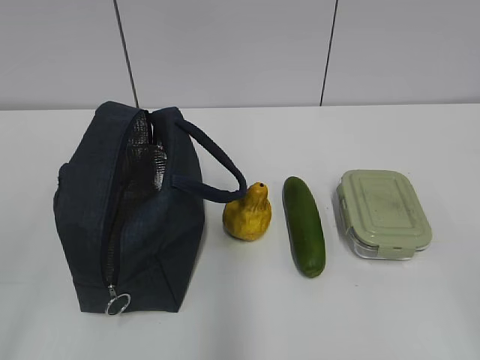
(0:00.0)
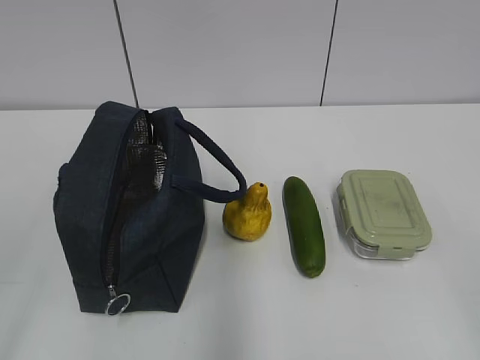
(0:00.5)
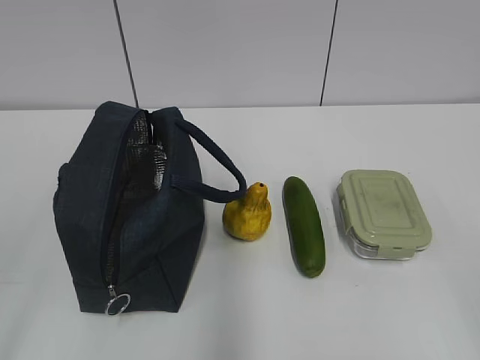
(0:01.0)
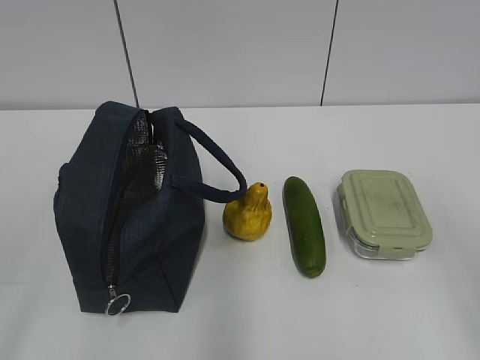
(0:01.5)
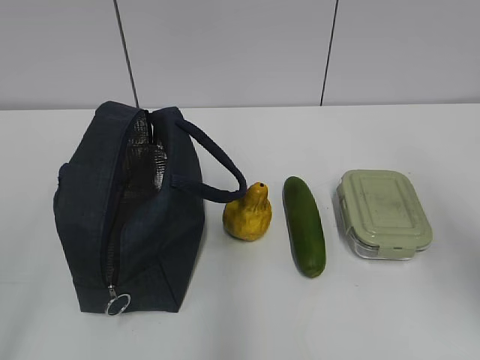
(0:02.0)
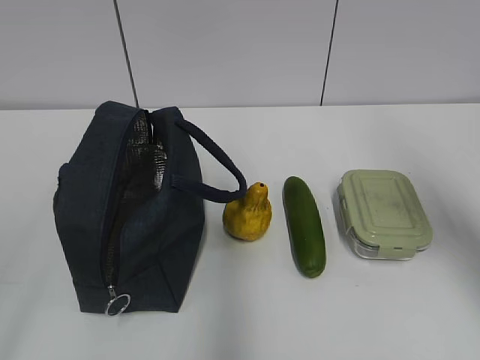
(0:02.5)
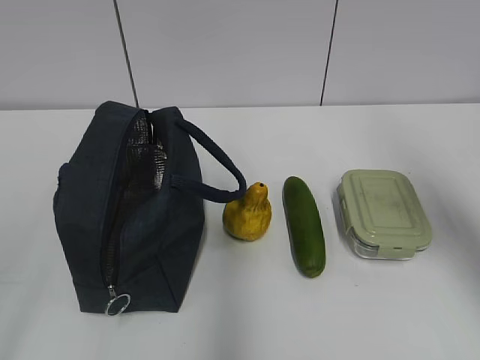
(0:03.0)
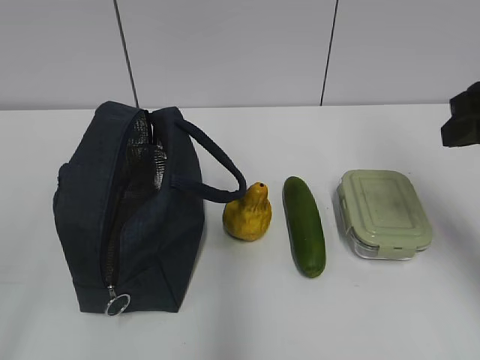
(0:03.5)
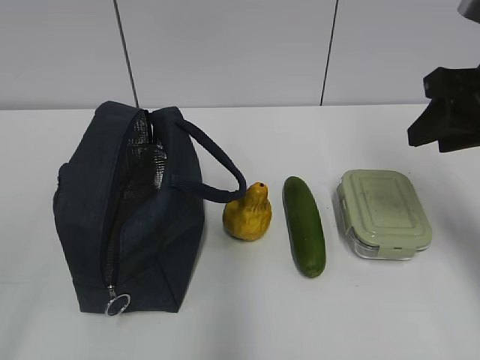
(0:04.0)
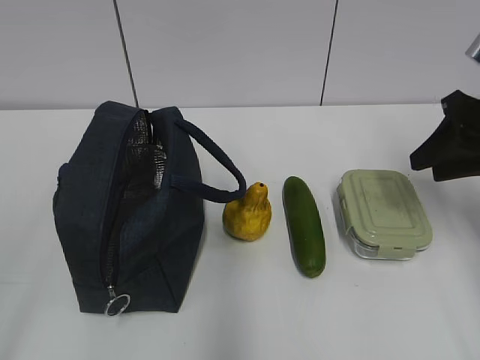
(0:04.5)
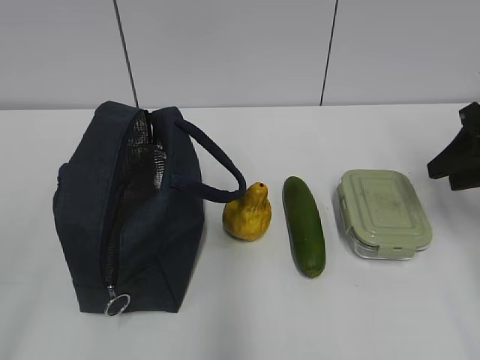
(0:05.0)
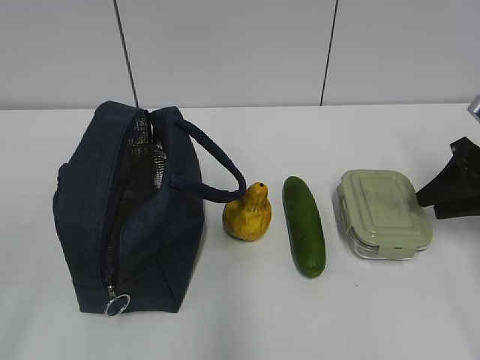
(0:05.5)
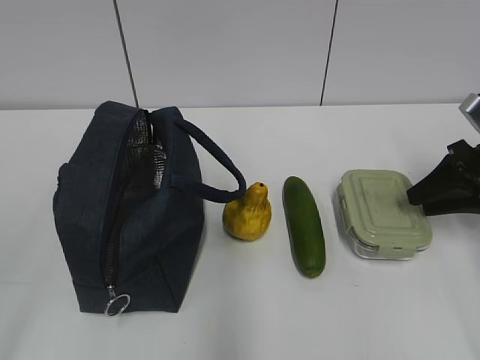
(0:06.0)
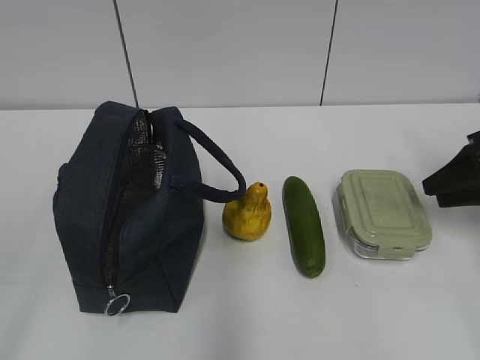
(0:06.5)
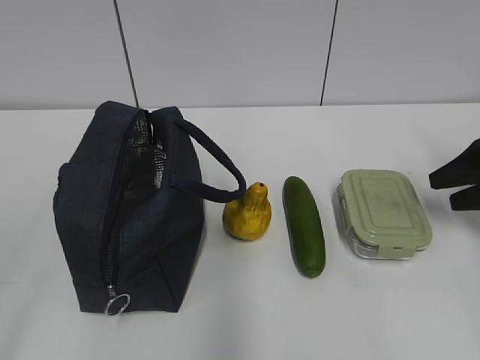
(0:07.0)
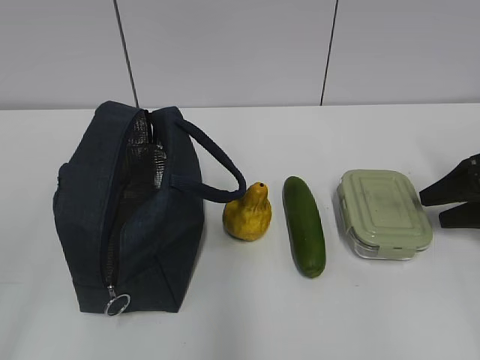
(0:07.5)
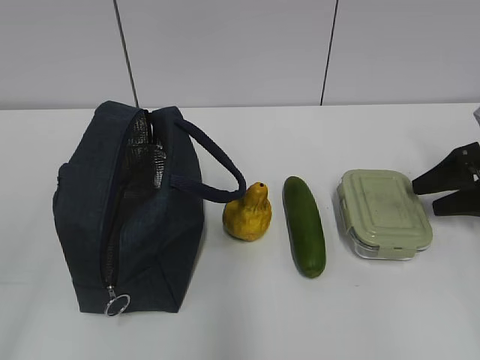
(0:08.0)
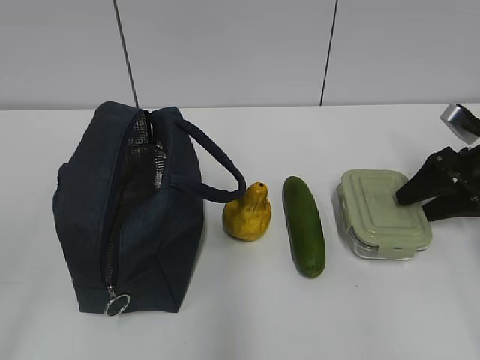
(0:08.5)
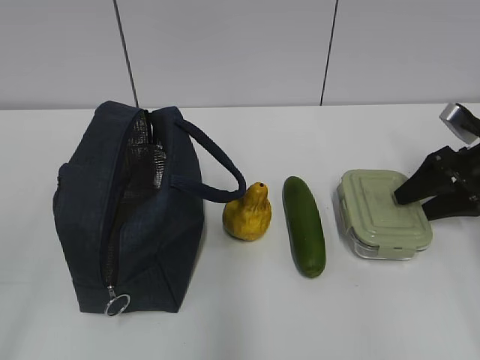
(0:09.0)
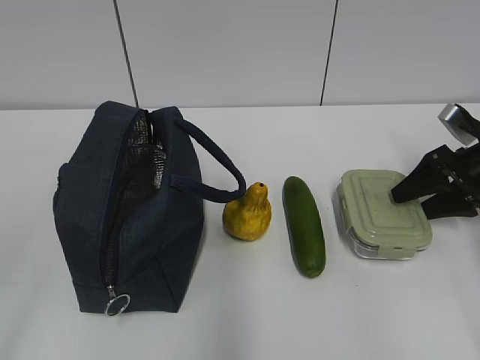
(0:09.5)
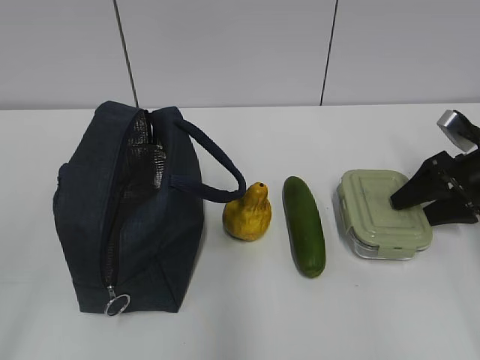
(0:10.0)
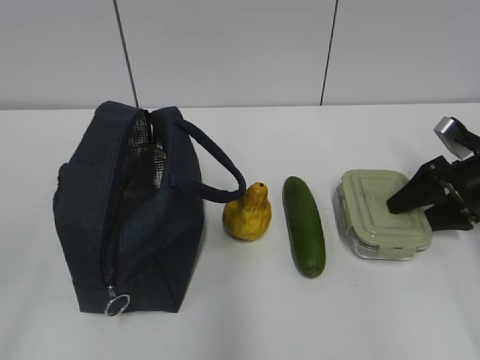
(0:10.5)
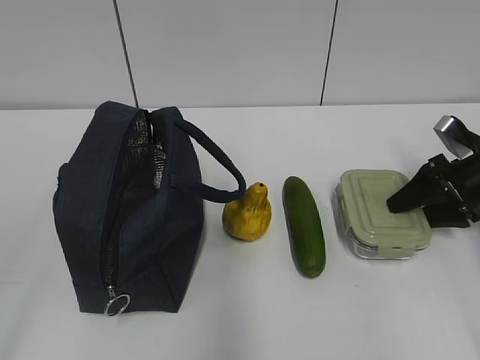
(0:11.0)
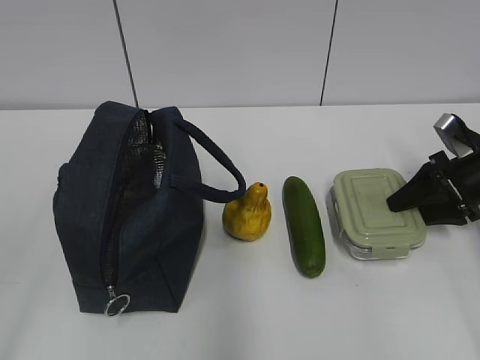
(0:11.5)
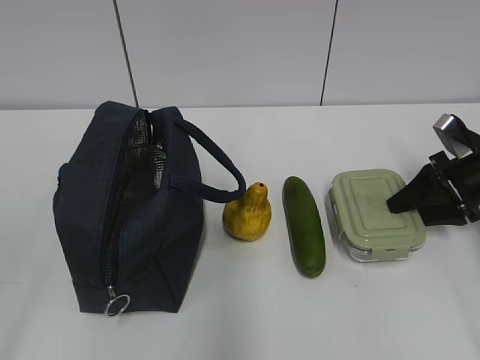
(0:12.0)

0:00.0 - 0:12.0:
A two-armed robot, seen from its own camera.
0:02.0 - 0:04.0: The right gripper moves forward, approximately 15 cm.
0:04.0 - 0:06.0: The right gripper heads downward and to the right, covering about 15 cm.
0:06.0 - 0:08.0: The right gripper moves approximately 5 cm, and opens.
0:08.0 - 0:10.0: The grippers move only a little.
0:10.0 - 0:12.0: Both grippers stay put.

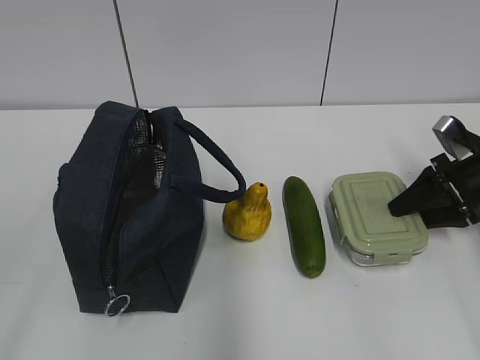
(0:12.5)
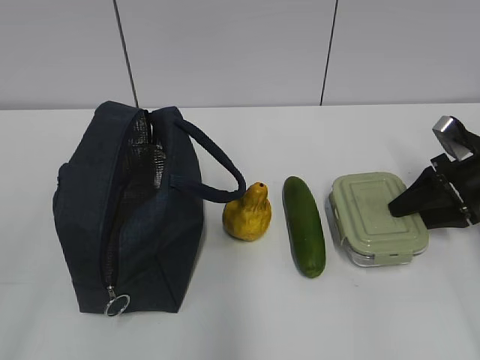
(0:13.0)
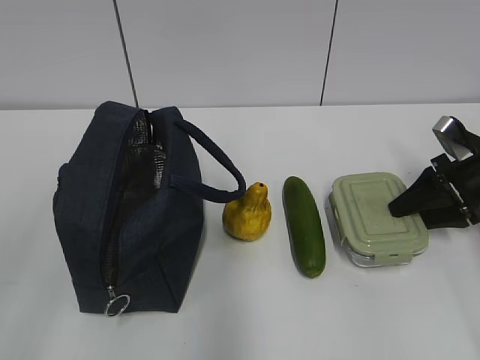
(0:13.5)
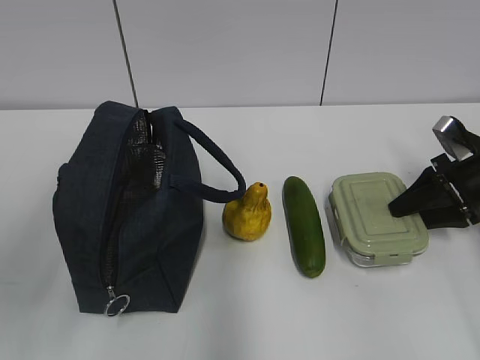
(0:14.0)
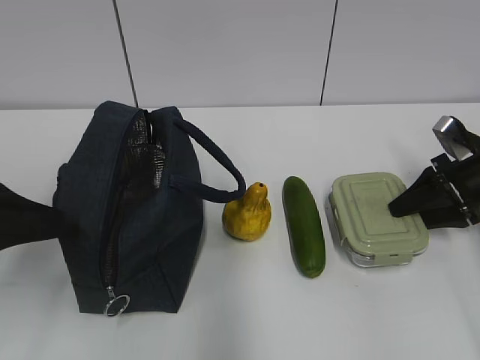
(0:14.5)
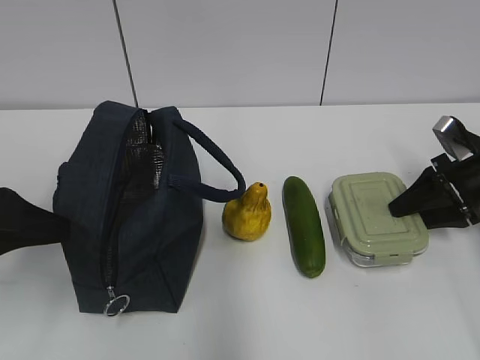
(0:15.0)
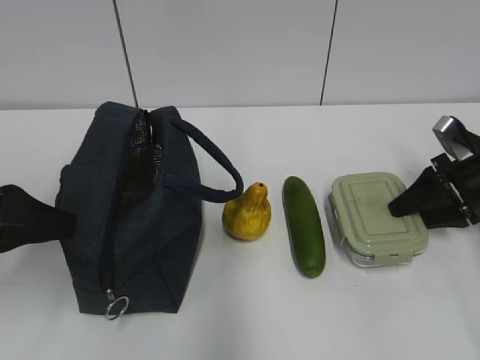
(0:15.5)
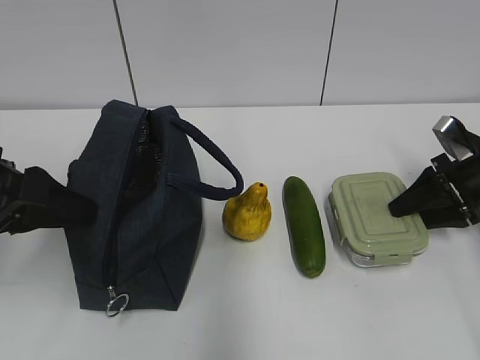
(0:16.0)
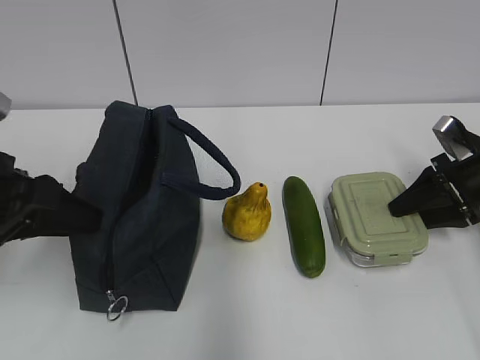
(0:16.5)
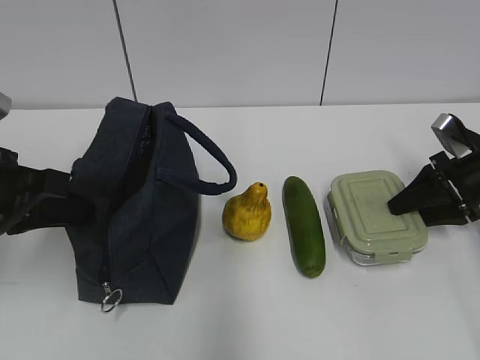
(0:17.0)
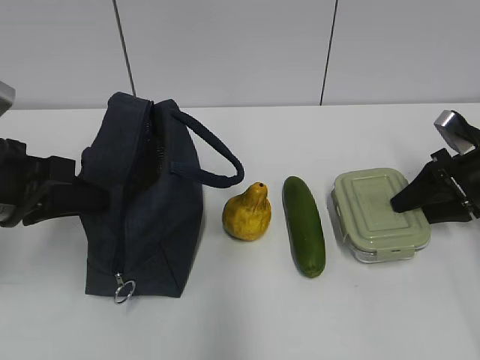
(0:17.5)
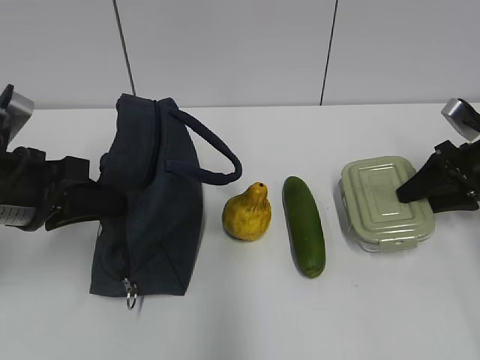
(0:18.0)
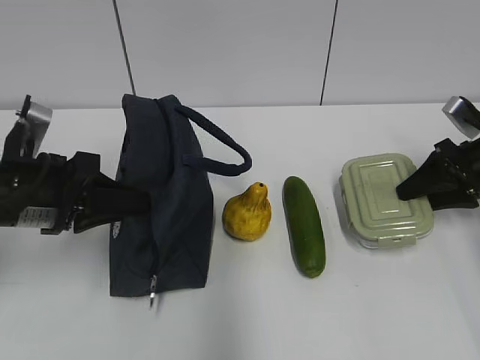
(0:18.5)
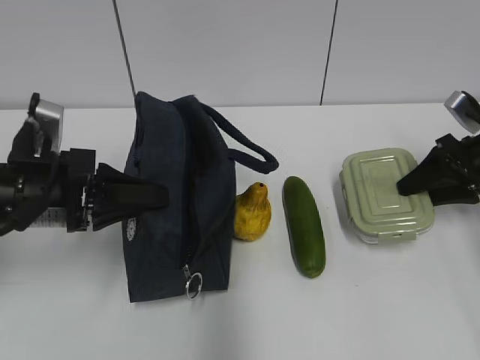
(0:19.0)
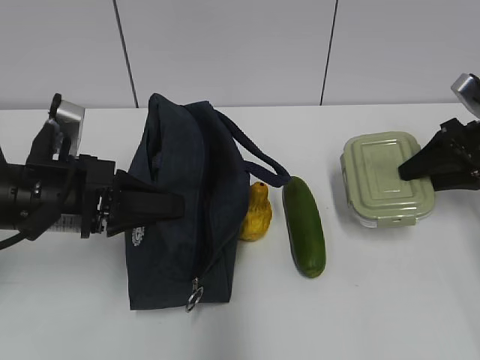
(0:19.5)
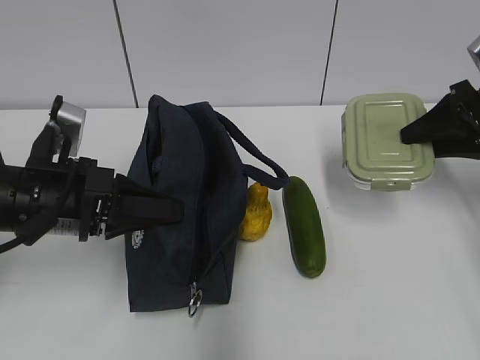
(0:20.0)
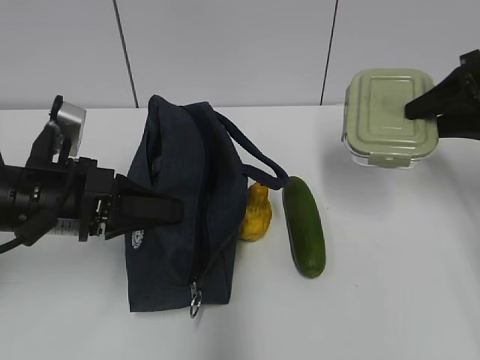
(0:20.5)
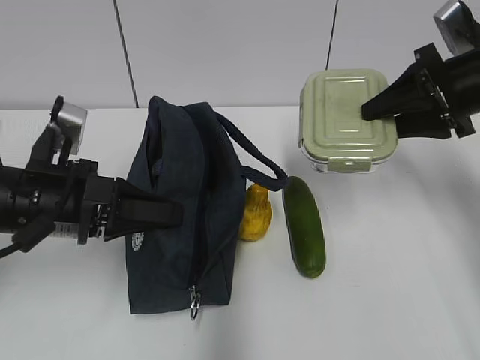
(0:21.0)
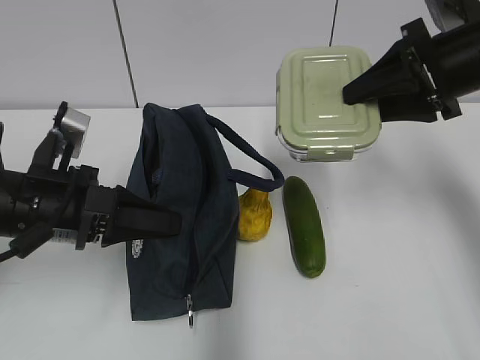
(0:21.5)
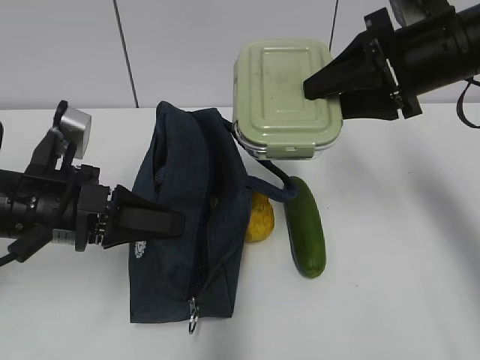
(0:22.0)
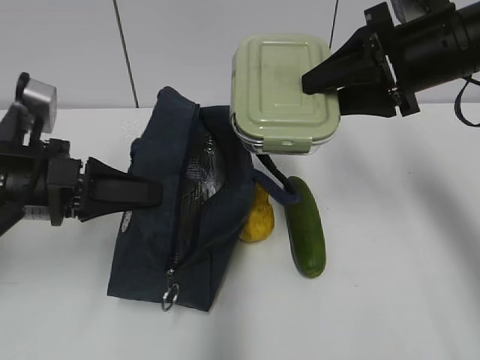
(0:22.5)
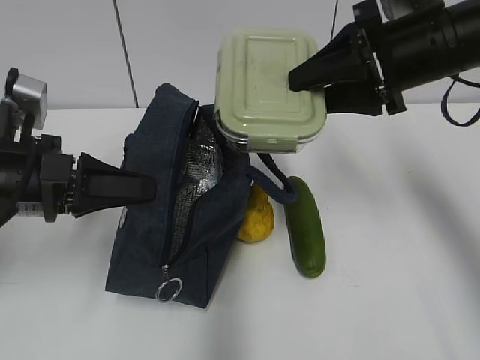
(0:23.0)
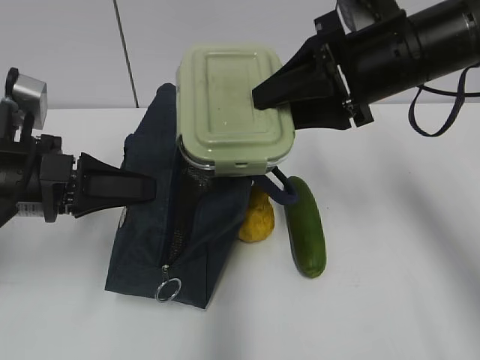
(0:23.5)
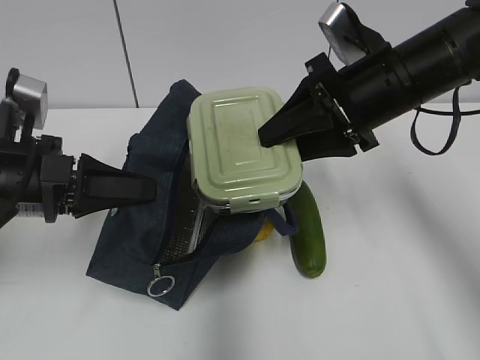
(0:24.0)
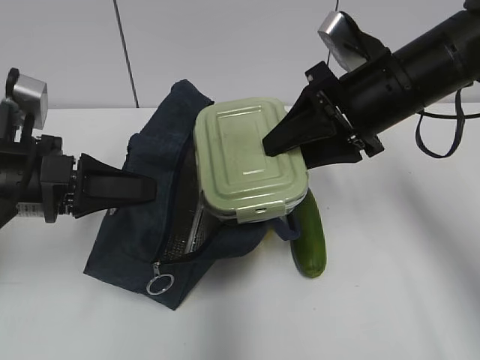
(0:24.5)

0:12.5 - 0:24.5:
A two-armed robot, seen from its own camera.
Step, 0:15.0 - 0:23.5: Grab the lunch bag with your left hand.
0:12.5 - 0:14.5: The left gripper shifts some 20 cm forward.
0:14.5 - 0:16.5: The left gripper heads forward, covering some 5 cm, and closes up.
0:16.5 - 0:18.5: The left gripper ends up approximately 5 cm from where it was, and closes up.
0:18.5 - 0:20.5: The right gripper shifts some 10 cm upward.
0:20.5 - 0:22.5: The right gripper goes roughly 15 cm to the left.
0:22.5 - 0:24.5: The right gripper shifts by some 5 cm.

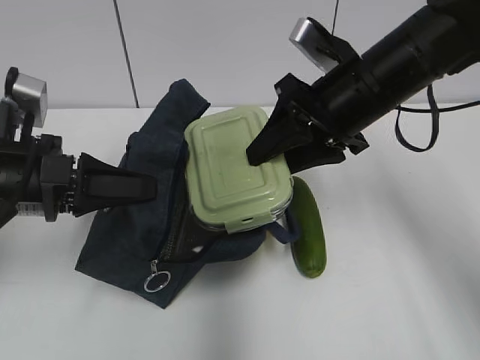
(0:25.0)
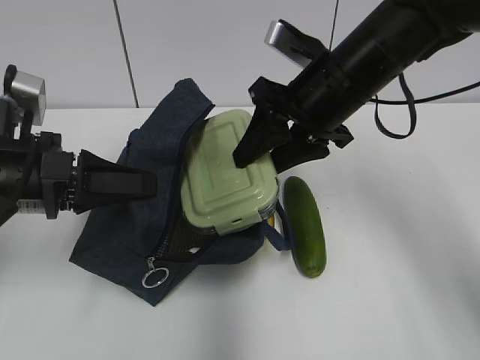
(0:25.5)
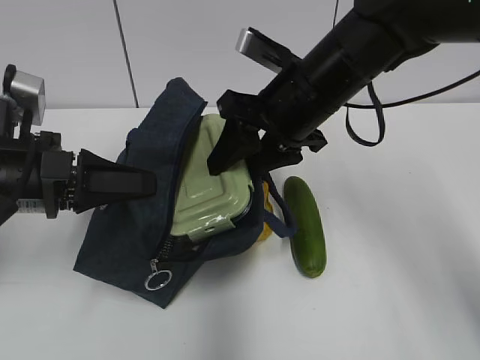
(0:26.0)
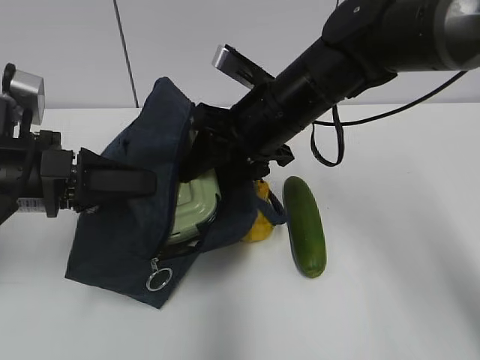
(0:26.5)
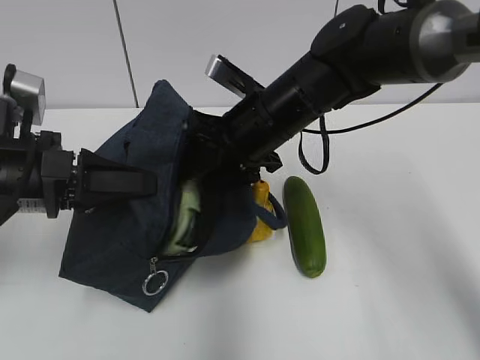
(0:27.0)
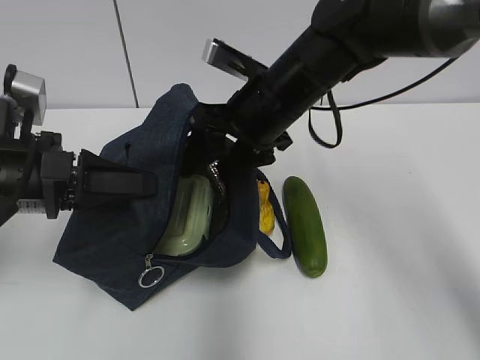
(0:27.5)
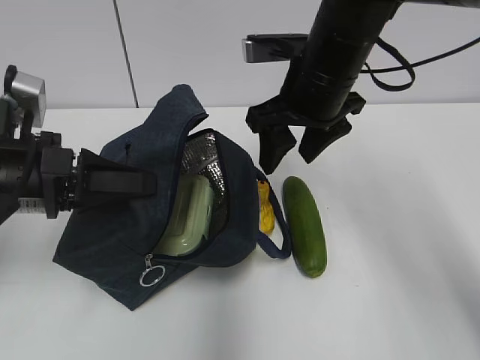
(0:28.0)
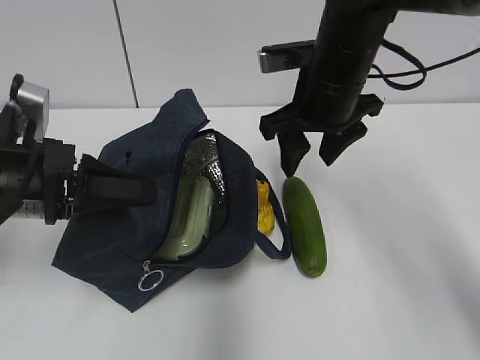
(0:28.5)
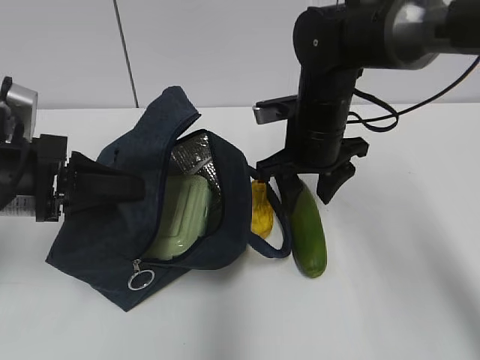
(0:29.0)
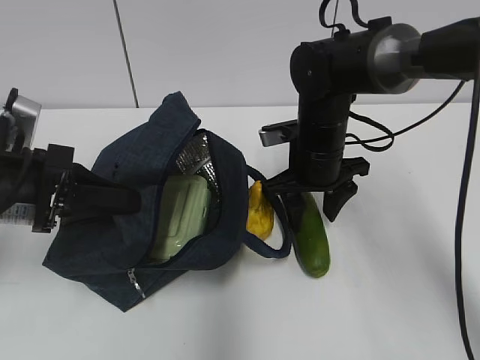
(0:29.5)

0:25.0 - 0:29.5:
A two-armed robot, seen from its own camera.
Step, 0:25.0 - 0:27.0: Place it into the bag with your right hand.
0:25.0 - 0:27.0: The right gripper moves to the left, about 10 cm.
0:27.0 - 0:29.5: The right gripper heads to the right and downward, covering about 10 cm.
